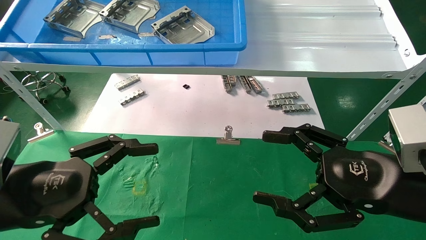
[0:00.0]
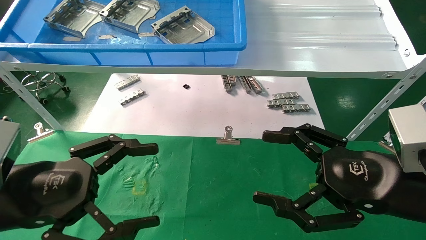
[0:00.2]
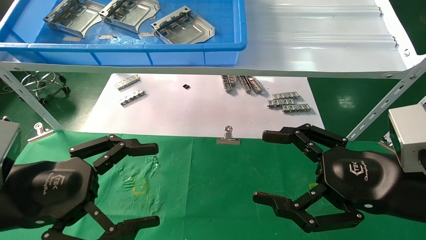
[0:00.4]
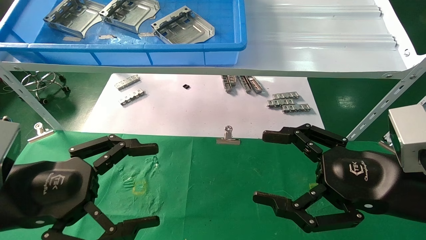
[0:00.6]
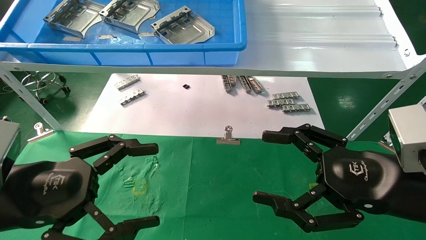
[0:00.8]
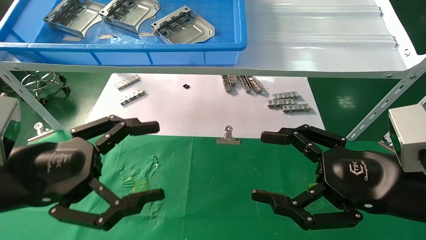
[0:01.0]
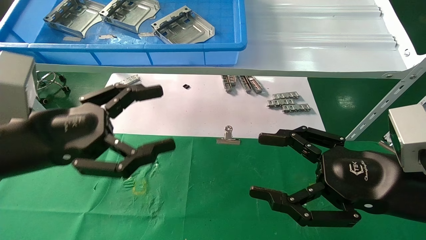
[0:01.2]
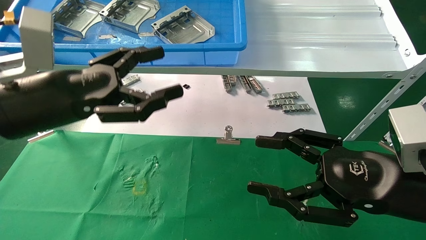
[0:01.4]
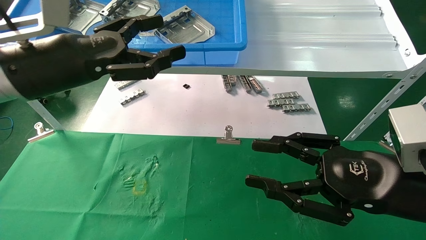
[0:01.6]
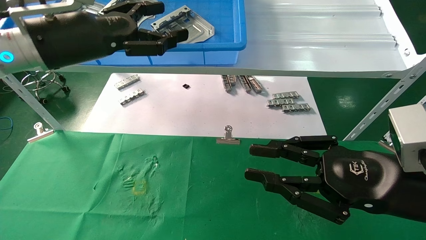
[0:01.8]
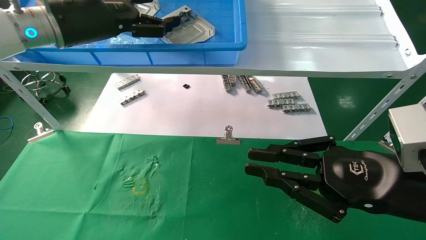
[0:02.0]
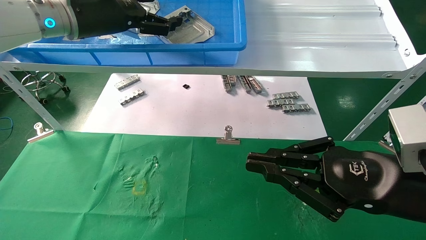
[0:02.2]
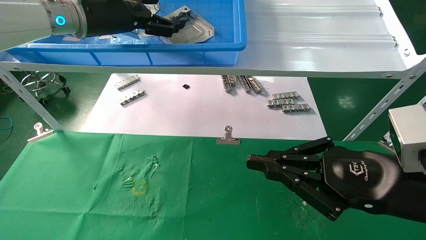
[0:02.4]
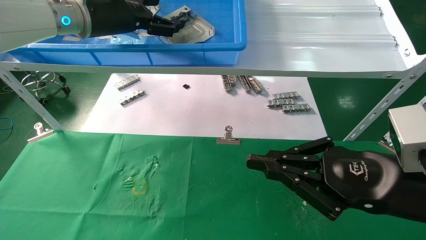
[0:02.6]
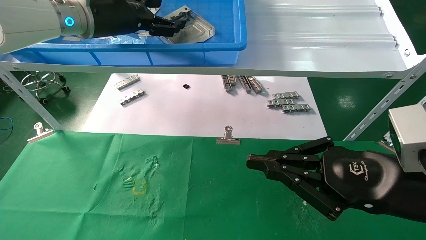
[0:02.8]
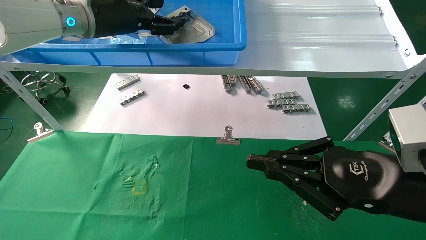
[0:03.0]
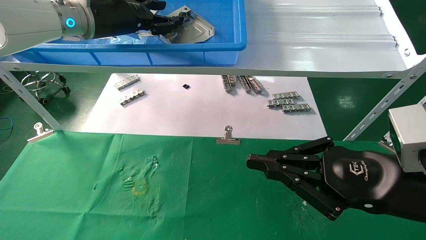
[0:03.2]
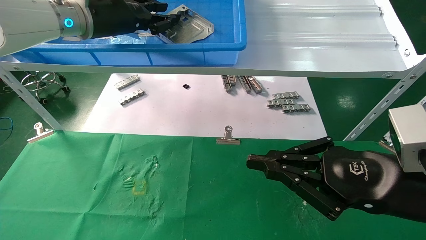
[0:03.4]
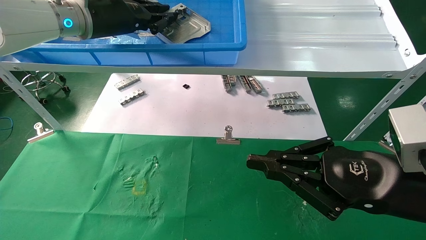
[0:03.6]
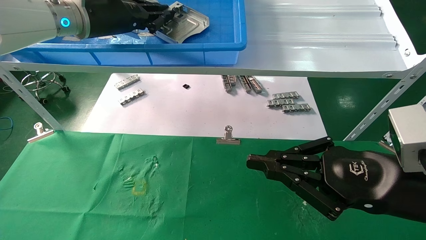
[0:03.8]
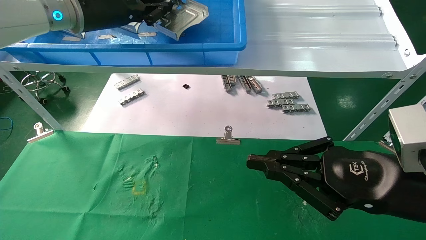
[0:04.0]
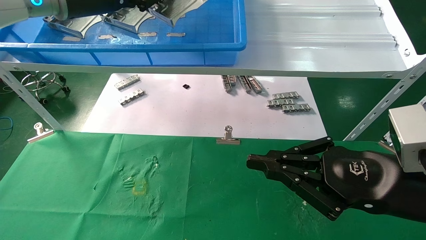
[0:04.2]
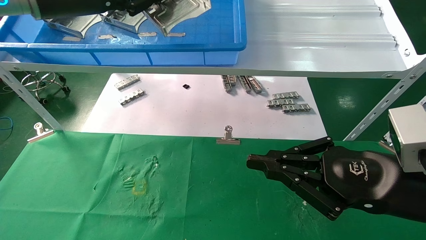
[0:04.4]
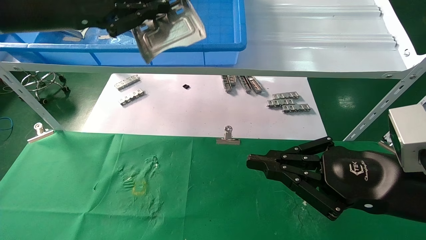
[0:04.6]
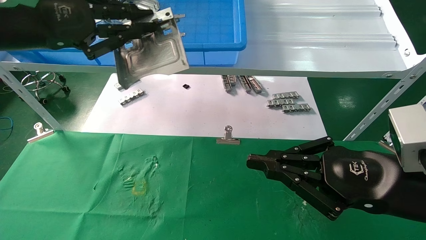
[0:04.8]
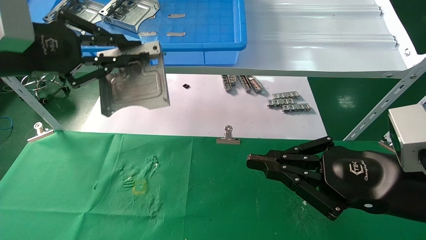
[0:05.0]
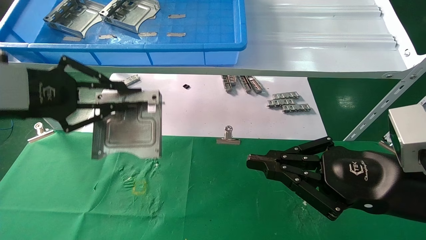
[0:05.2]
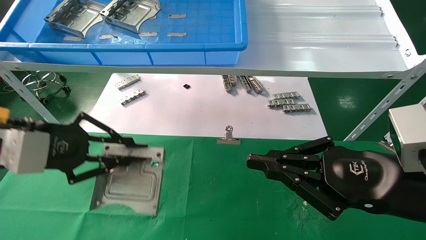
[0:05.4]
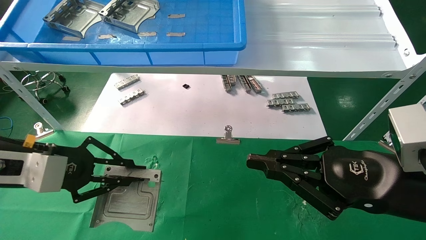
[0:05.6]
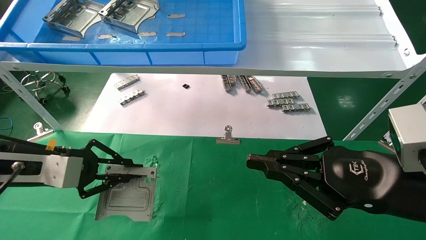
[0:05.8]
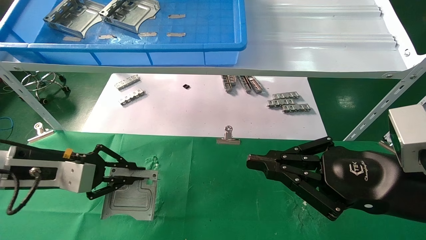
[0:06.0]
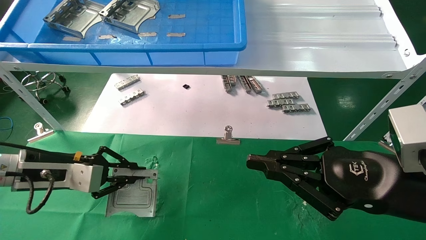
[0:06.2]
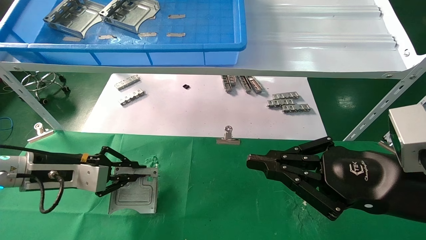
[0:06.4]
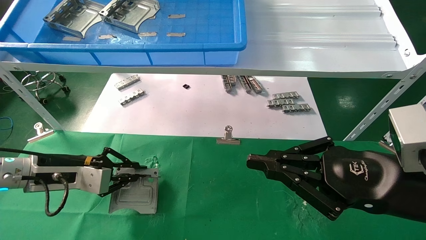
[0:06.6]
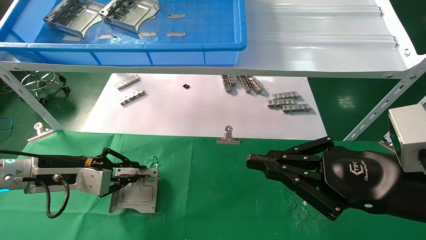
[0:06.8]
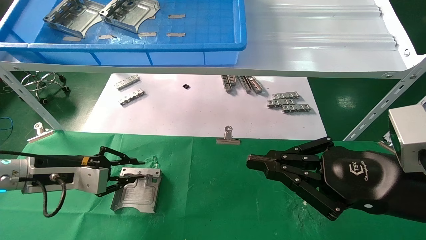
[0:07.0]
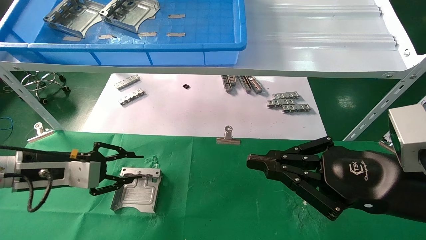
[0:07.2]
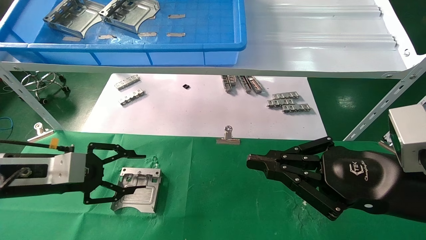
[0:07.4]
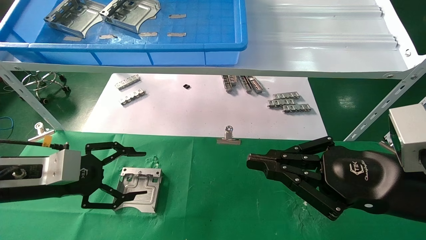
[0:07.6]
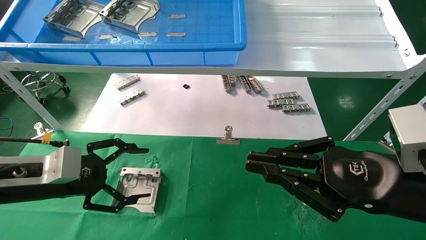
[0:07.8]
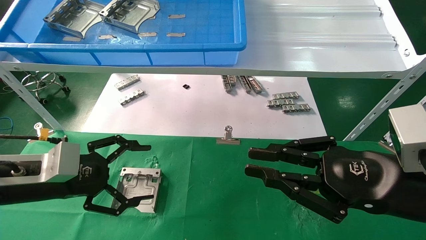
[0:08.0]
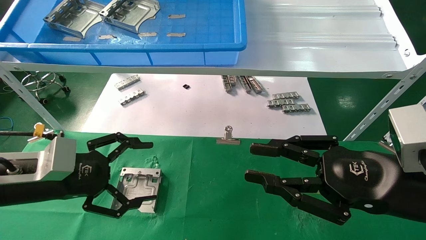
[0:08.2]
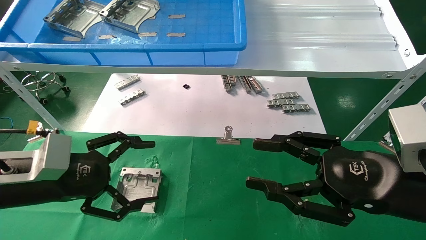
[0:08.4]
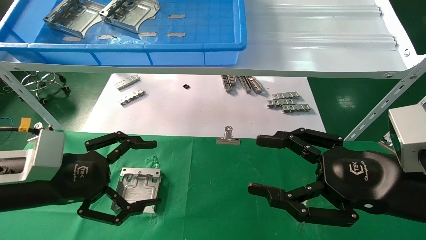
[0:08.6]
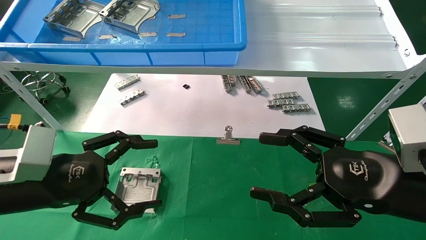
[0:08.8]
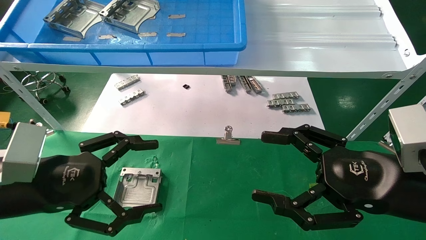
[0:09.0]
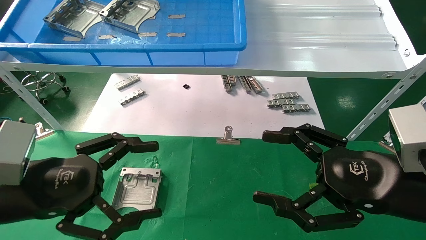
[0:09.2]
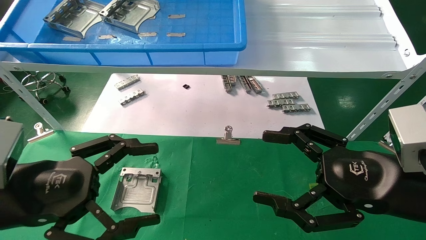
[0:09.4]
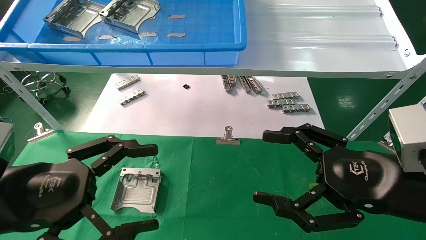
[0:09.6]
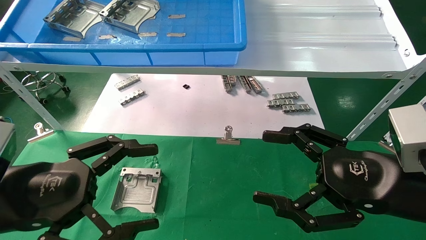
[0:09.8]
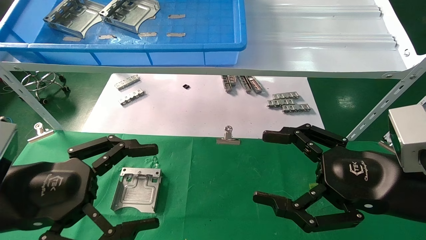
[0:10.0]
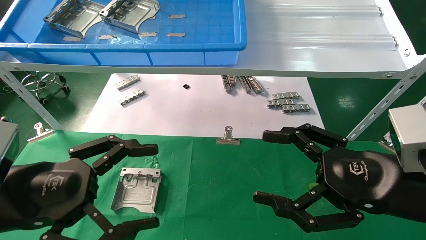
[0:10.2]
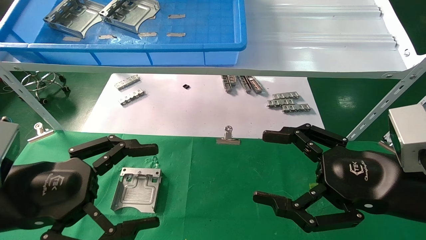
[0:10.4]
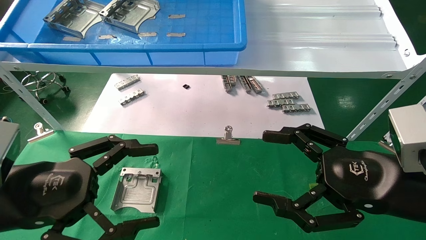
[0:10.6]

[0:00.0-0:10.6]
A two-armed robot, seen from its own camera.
Task of the whole recording: use the mechanical arm to pick up the parts and place them on the table.
Step, 0:01.2 to 0:03.8: Pick up the hard drive bracket from the feeding area.
Step, 0:04.0 to 0:07.0: Place the hard drive bracket into the box.
0:00.0 to 0:01.6: The left gripper is displaced upward and forward by about 15 cm. Meanwhile the right gripper closes.
0:01.6 to 0:03.0: The right gripper closes its fingers, while the left gripper shifts some 15 cm forward and upward.
0:03.0 to 0:04.6: The left gripper heads backward and to the left, covering some 10 cm, and closes.
0:04.6 to 0:06.0: The left gripper shifts roughly 25 cm downward.
0:06.0 to 0:07.6: The left gripper opens up.
0:07.6 to 0:09.0: The right gripper opens. The left gripper goes approximately 10 cm backward, and opens up.
0:09.0 to 0:10.6: There are only small adjustments of the grippers.

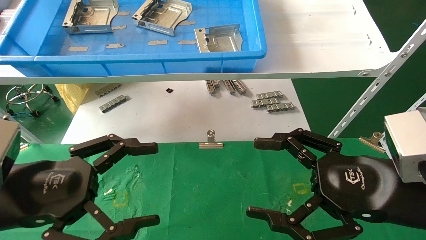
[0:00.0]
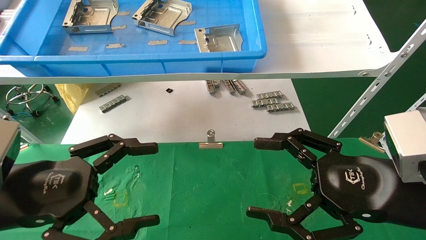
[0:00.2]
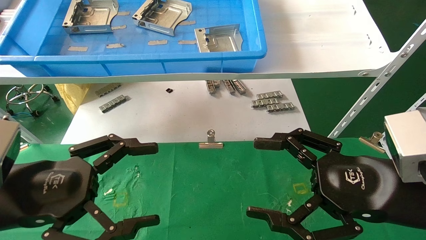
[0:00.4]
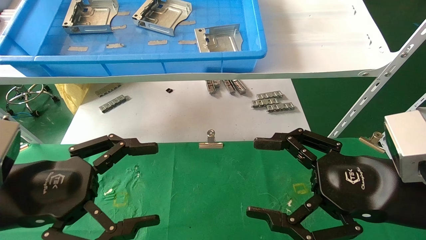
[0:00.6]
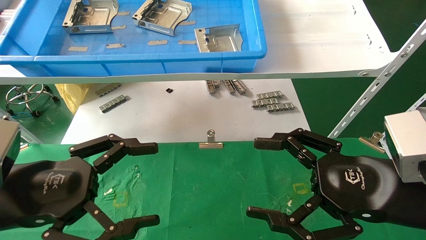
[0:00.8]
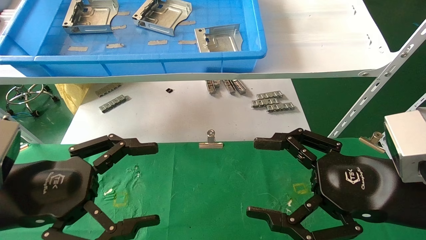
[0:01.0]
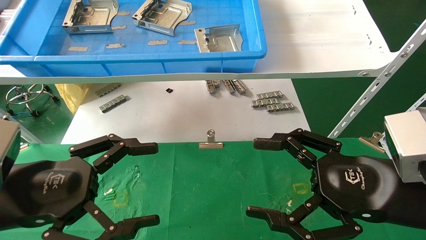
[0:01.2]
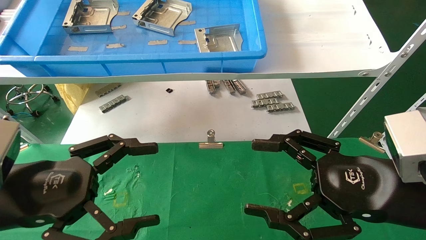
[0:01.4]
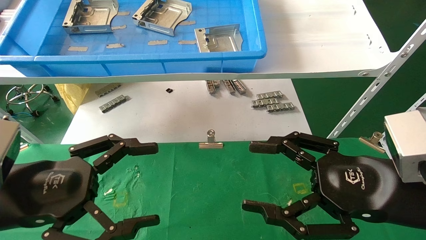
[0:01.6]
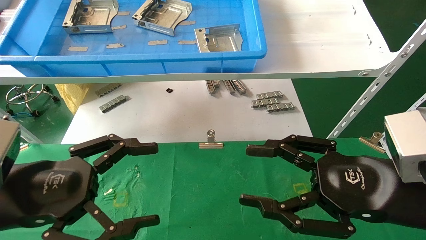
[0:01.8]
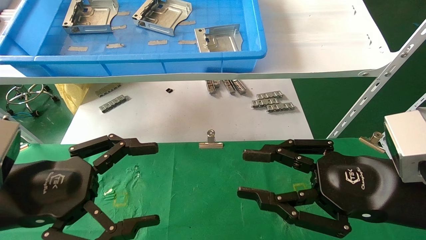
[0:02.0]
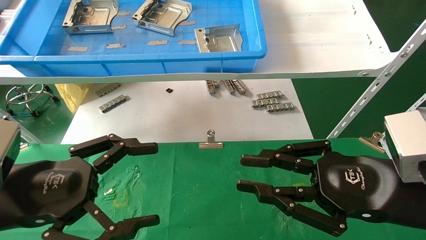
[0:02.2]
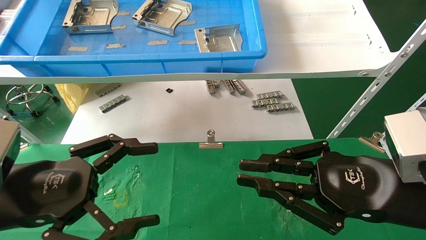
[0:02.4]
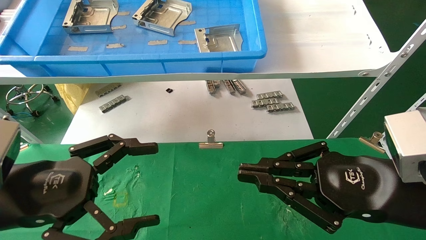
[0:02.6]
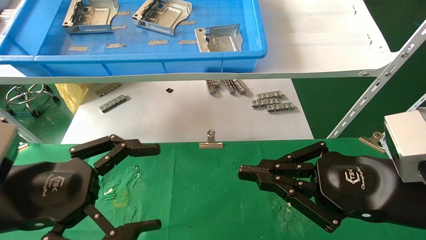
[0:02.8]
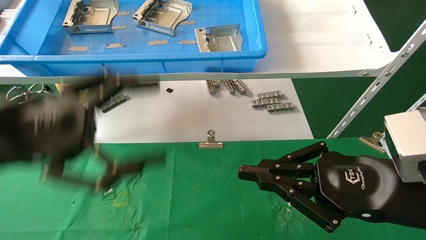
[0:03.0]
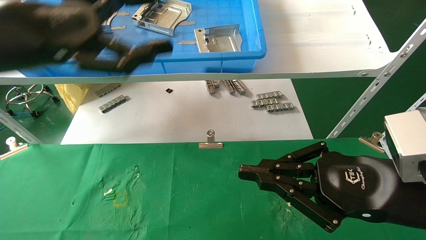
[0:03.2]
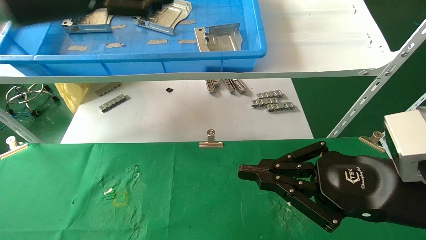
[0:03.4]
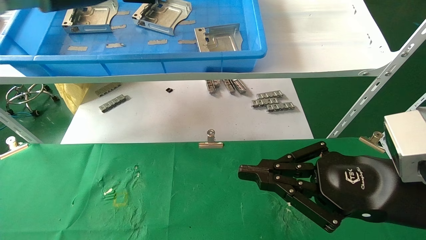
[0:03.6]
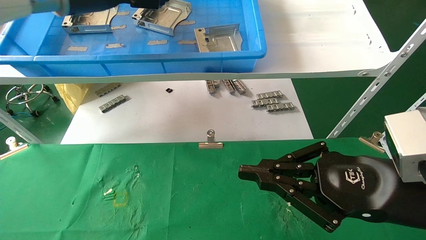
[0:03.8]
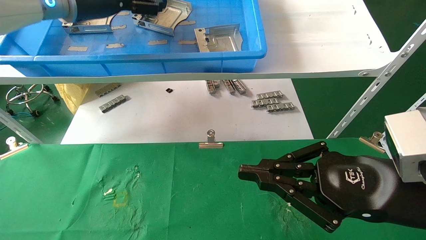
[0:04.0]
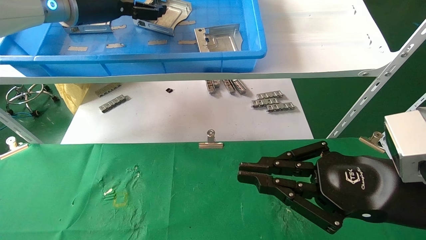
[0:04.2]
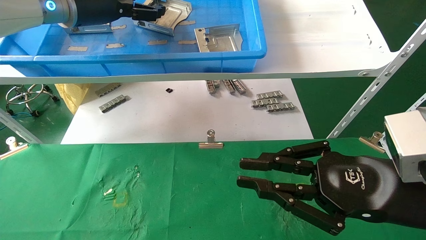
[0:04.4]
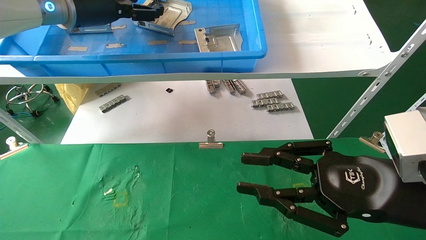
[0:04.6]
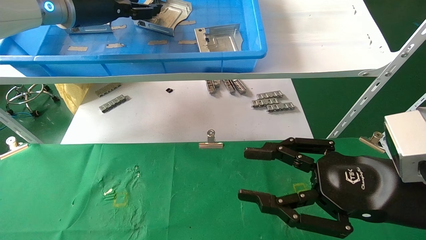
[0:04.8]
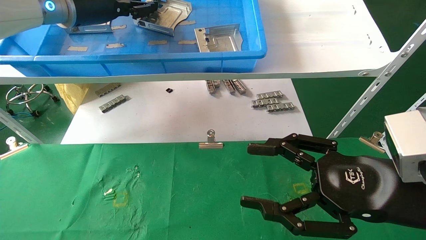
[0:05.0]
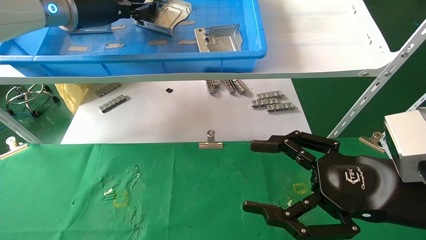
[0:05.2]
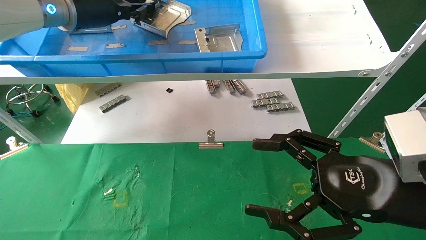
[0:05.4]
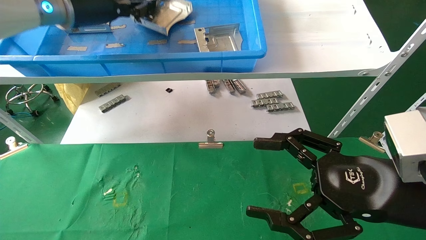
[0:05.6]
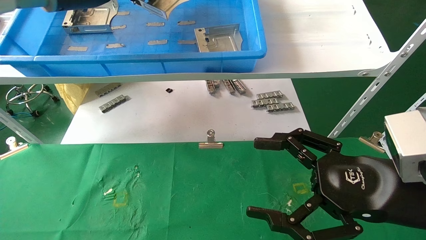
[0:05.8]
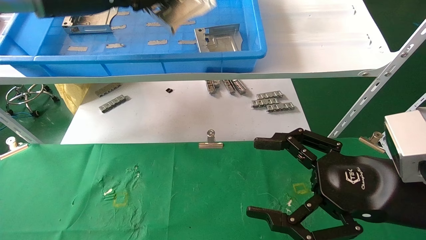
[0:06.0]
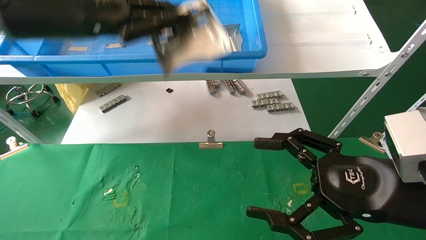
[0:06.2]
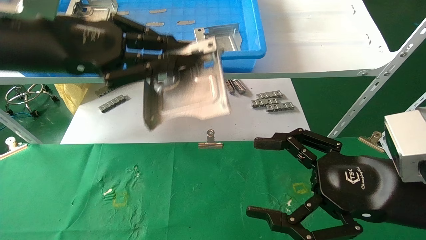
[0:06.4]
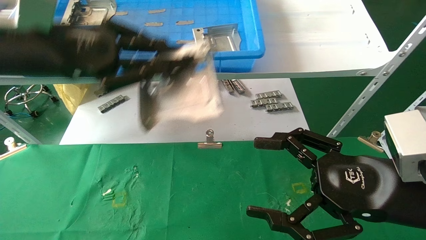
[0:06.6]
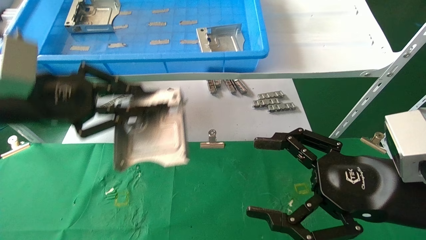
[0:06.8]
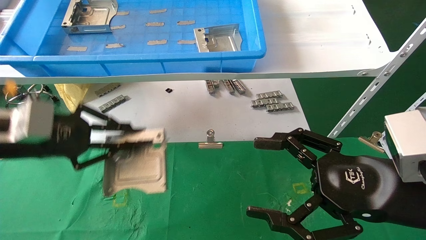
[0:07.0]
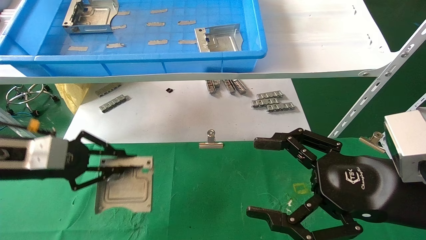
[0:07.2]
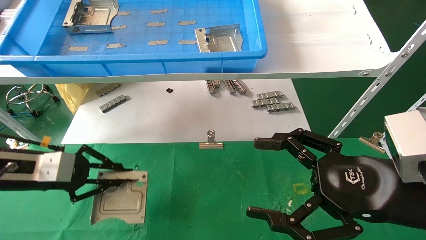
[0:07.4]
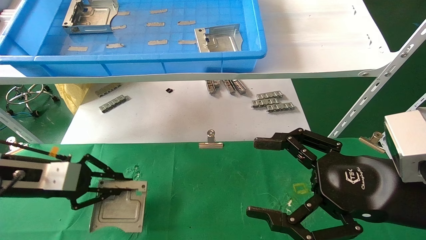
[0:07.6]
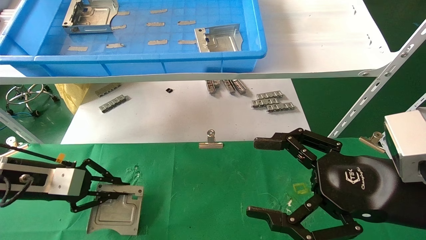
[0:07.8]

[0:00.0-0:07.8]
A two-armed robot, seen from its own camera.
Task of the whole recording: use the mechanical arm to pick up the parts and place them on the table.
Step, 0:03.0 to 0:05.4: Pick up the hard drive bracket from the feeding area.
0:00.0 to 0:01.6: Neither gripper changes place.
0:01.6 to 0:03.2: The right gripper closes. Meanwhile the left gripper goes approximately 20 cm upward and forward.
0:03.2 to 0:04.6: The left gripper goes about 15 cm forward.
0:04.6 to 0:06.2: The right gripper opens up. Meanwhile the left gripper travels backward by about 10 cm, and closes up.
0:06.2 to 0:07.8: The left gripper travels downward and to the left by some 30 cm.
